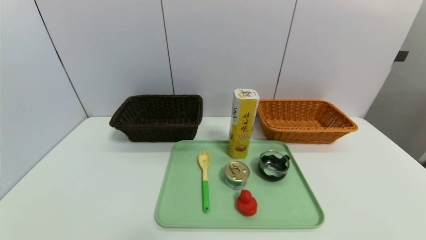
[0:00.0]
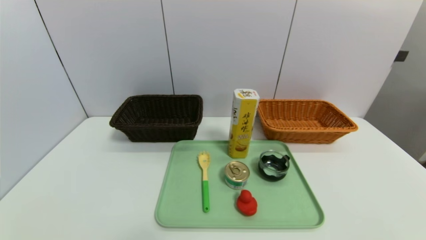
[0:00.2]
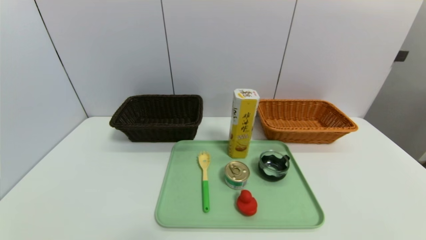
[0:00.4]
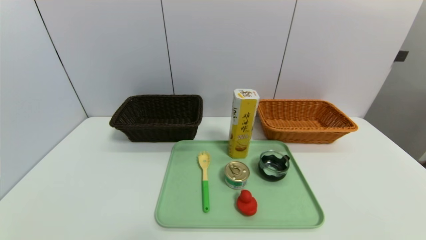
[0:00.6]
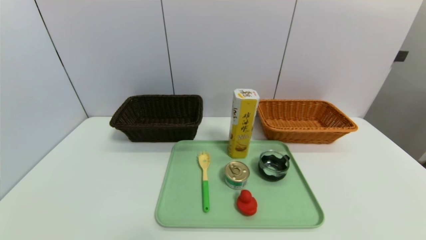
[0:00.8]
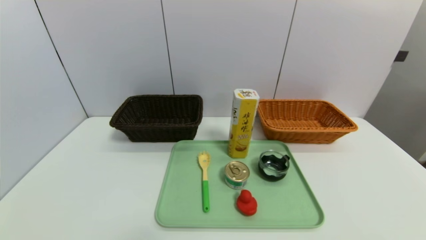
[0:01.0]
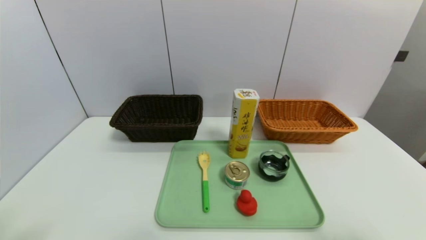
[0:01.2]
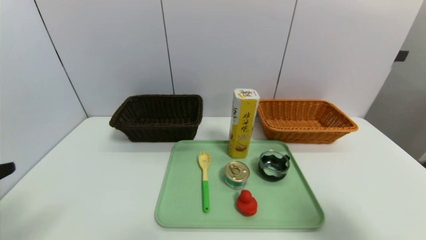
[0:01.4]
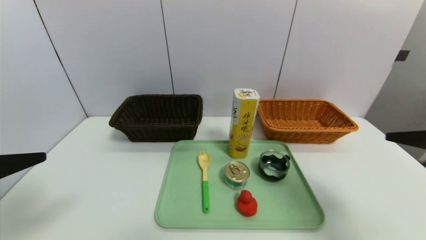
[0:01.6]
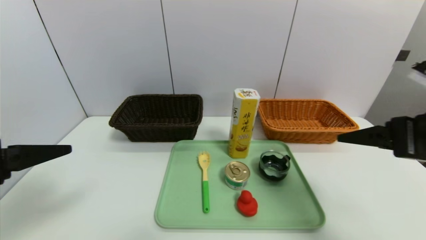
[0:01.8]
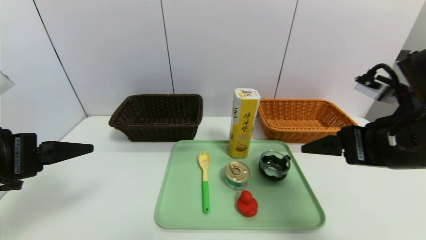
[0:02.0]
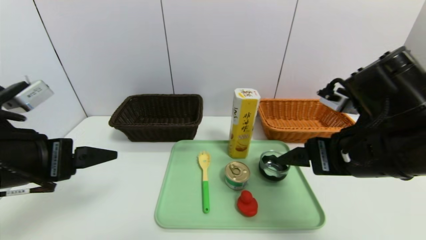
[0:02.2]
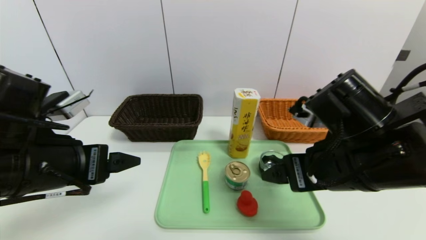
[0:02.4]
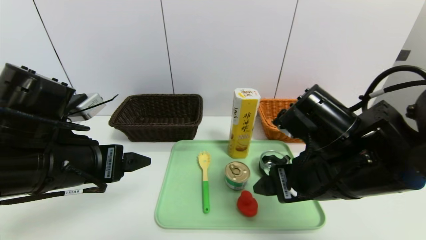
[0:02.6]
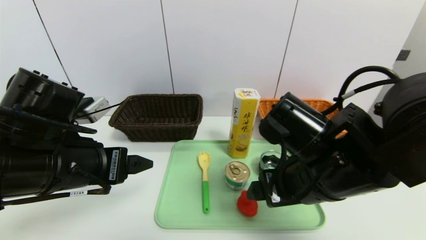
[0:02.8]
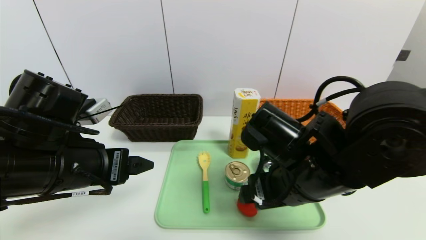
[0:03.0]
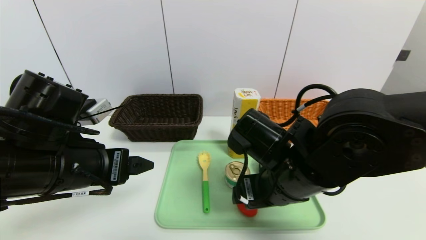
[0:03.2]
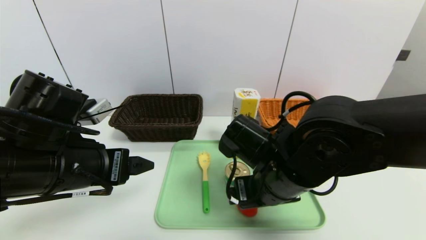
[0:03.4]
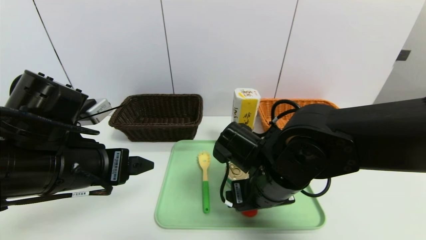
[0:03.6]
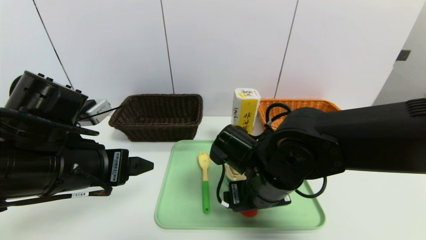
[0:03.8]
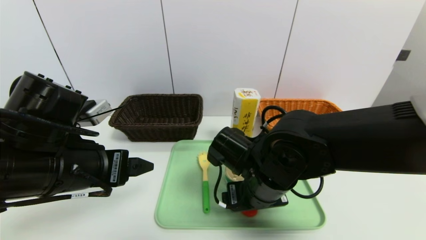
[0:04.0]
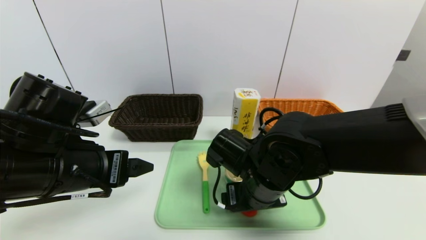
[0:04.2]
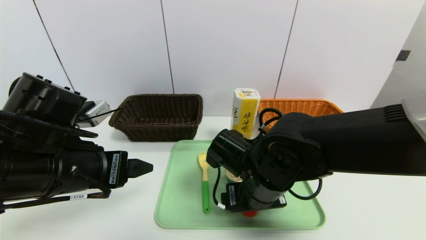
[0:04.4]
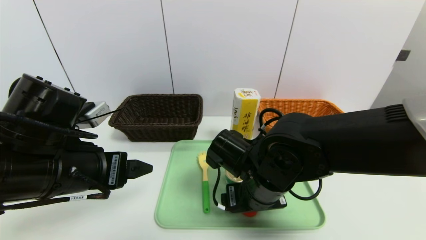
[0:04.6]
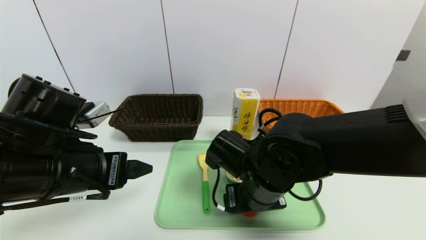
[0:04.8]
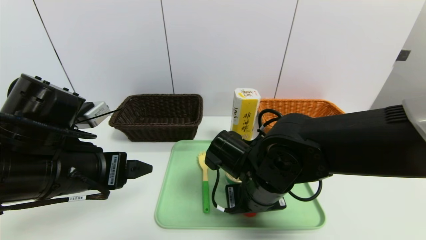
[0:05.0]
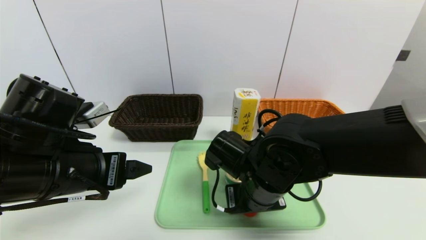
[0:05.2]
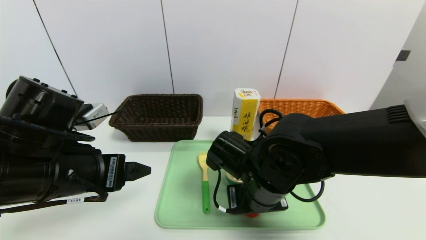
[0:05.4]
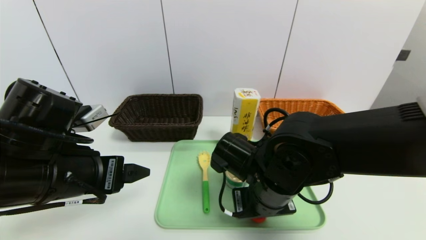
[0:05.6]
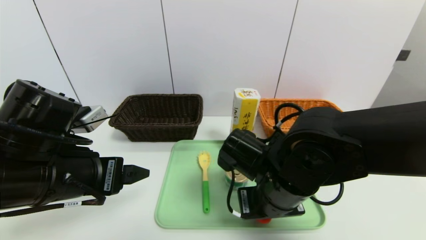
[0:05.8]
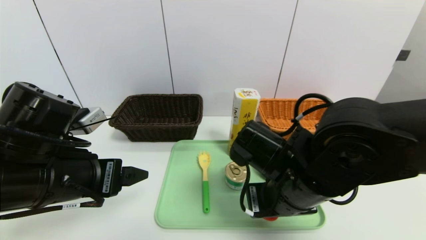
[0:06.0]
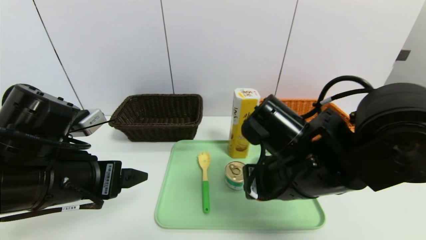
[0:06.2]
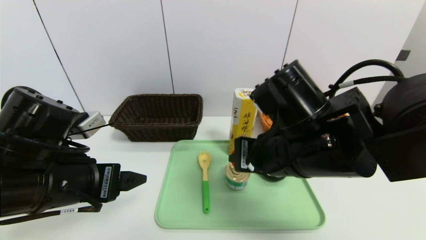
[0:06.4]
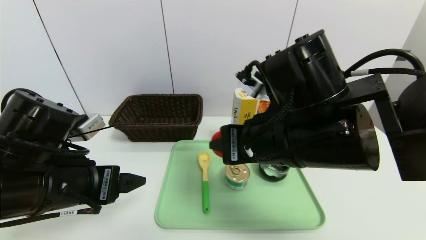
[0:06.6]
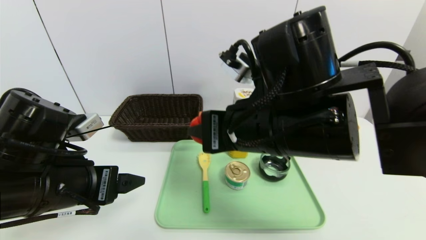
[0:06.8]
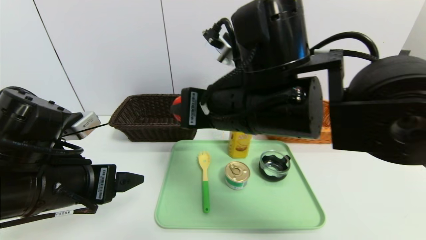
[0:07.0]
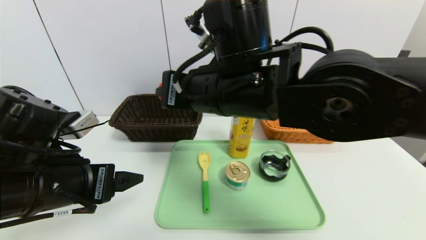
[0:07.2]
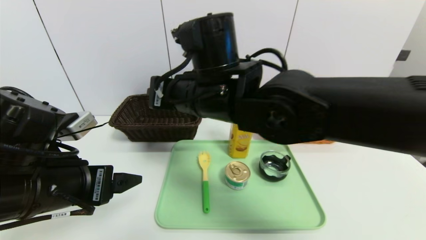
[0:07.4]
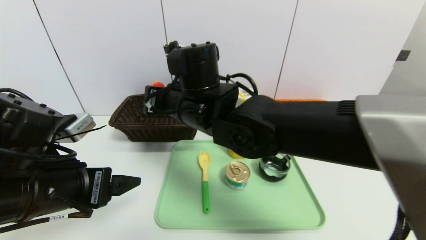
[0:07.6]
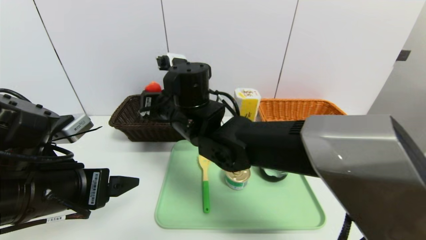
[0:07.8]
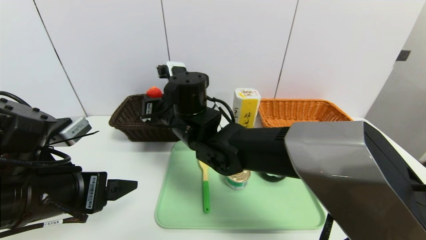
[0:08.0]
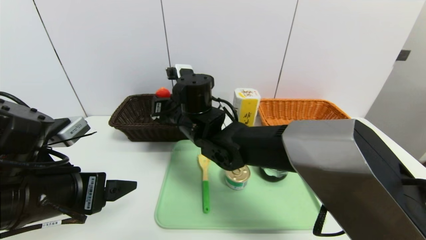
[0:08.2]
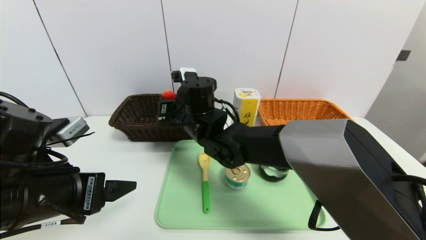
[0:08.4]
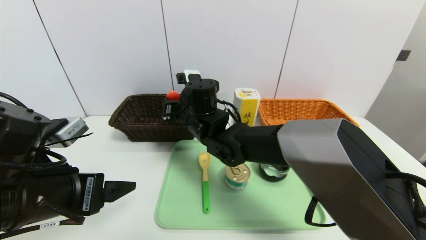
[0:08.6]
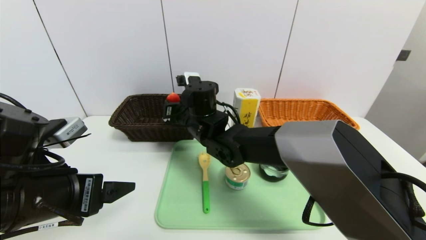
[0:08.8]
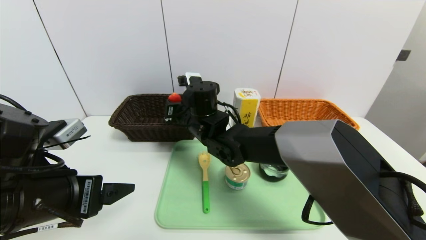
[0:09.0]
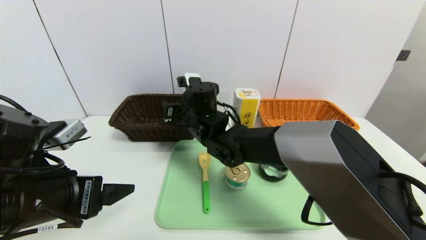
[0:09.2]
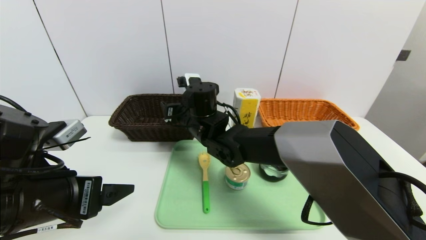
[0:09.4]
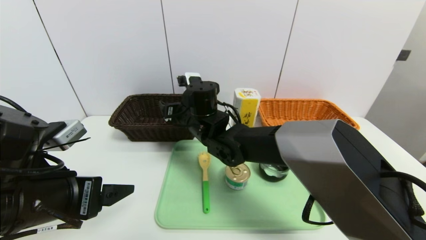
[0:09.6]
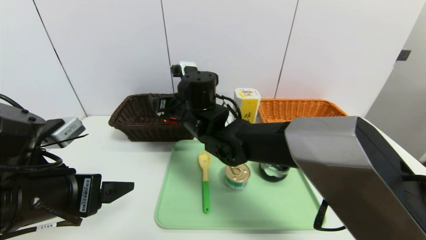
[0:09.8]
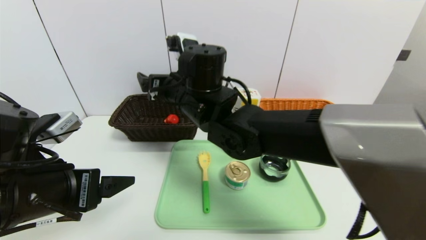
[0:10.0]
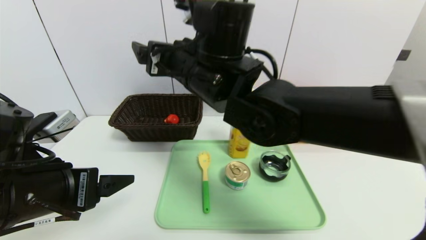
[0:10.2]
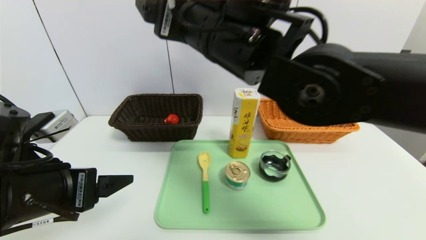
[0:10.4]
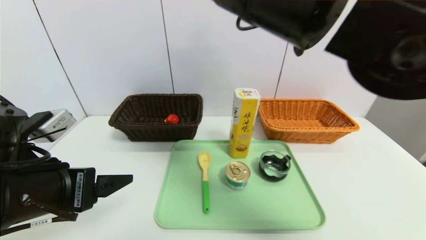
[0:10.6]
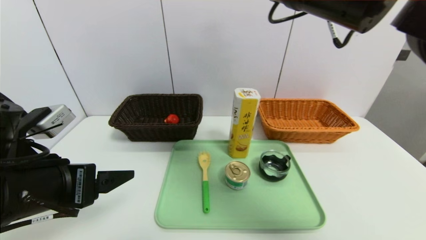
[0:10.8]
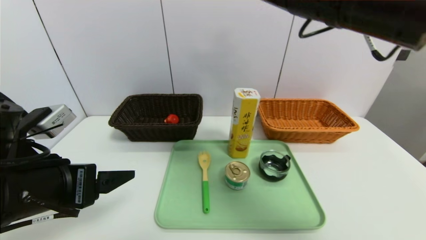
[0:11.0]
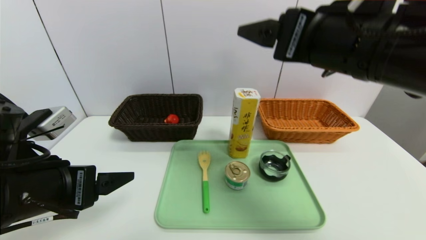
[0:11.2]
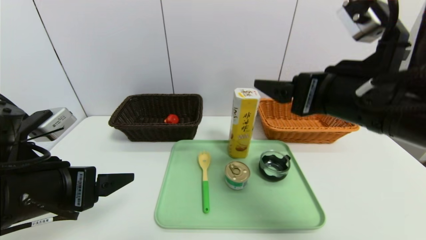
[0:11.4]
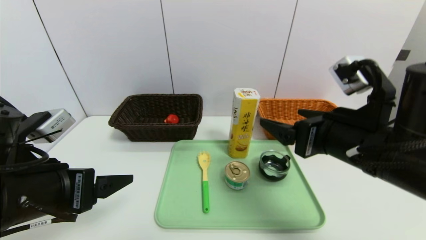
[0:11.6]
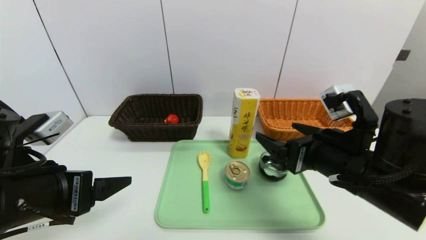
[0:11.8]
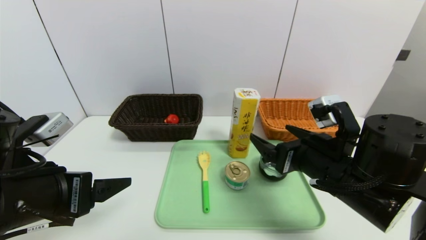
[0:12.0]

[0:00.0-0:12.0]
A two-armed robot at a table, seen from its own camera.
Task of the whole recording: place the food in the right basket with the right gripper, and place the non food items in the left basket with the left gripper.
Step, 0:00.0 to 0:09.6: Grasp the red duck and put it in the left basket.
0:00.0 to 0:01.6: Both grippers move upward and forward, some 25 cm.
0:01.6 to 0:03.0: The left gripper travels to the right and forward by roughly 15 cm. The right gripper goes approximately 20 cm to the left and downward.
0:03.0 to 0:04.4: The right gripper shifts some 5 cm downward.
0:04.4 to 0:06.0: The right gripper moves approximately 5 cm, and closes up.
0:06.0 to 0:07.6: The right gripper is displaced to the left, forward and upward by approximately 20 cm.
0:07.6 to 0:09.0: The right gripper goes approximately 10 cm downward and forward.
0:09.0 to 0:10.4: The right gripper travels upward and backward by about 20 cm, and opens.
0:10.4 to 0:12.0: The right gripper goes approximately 25 cm downward and to the right.

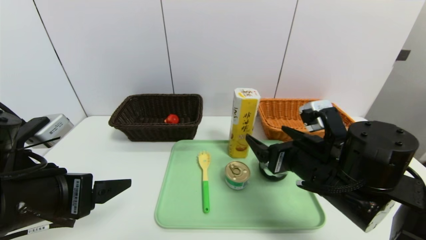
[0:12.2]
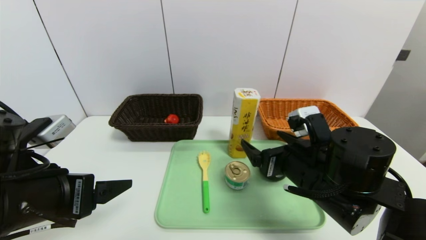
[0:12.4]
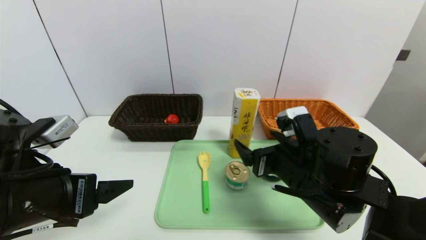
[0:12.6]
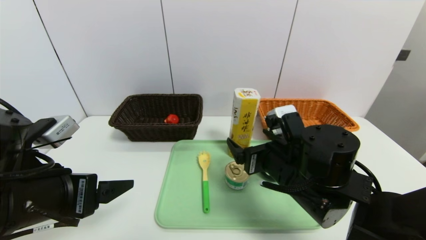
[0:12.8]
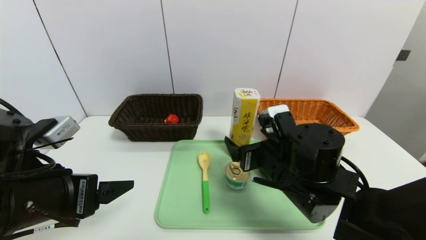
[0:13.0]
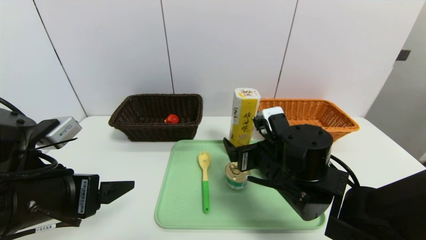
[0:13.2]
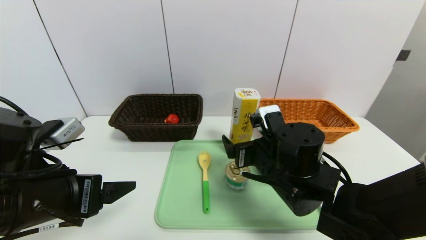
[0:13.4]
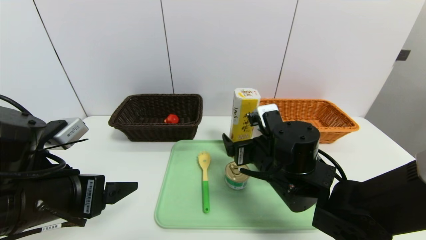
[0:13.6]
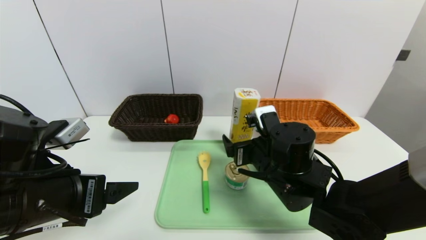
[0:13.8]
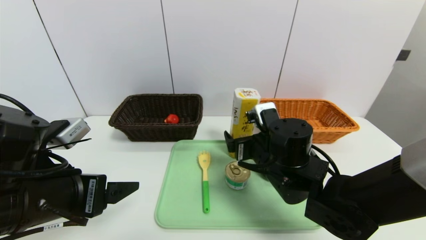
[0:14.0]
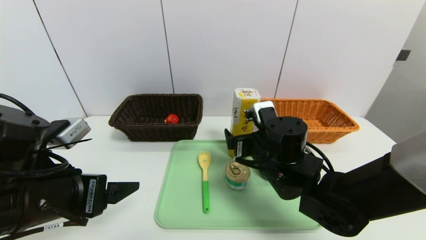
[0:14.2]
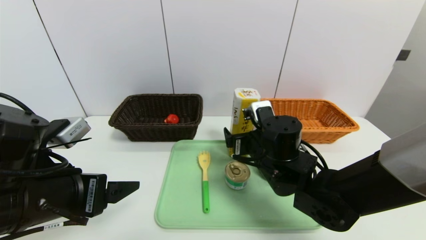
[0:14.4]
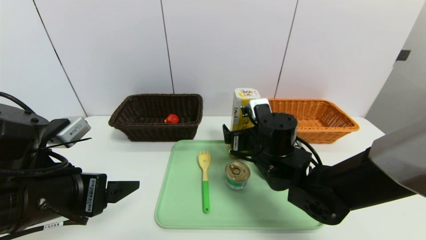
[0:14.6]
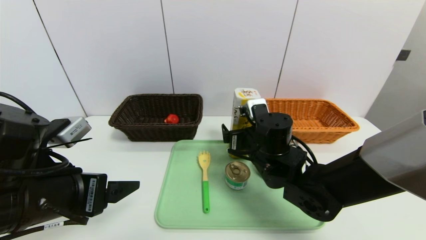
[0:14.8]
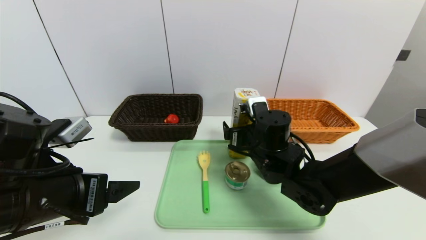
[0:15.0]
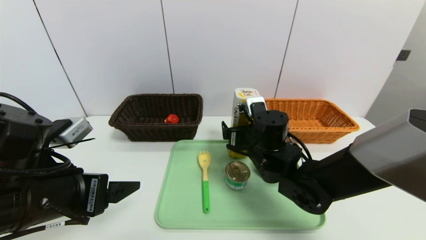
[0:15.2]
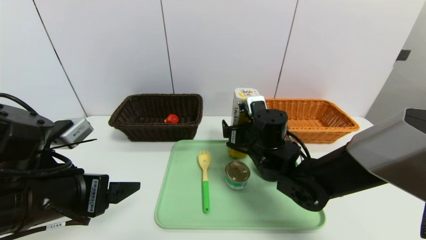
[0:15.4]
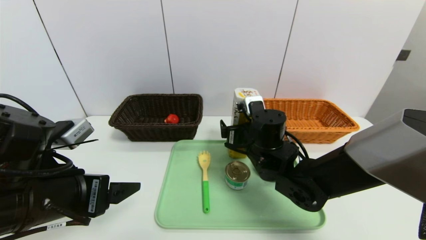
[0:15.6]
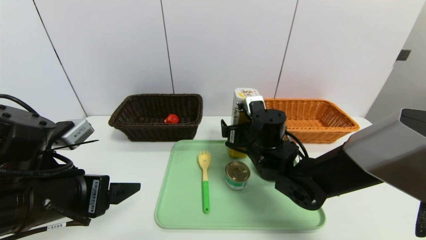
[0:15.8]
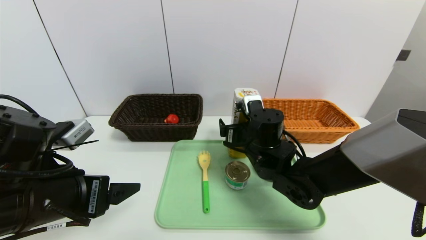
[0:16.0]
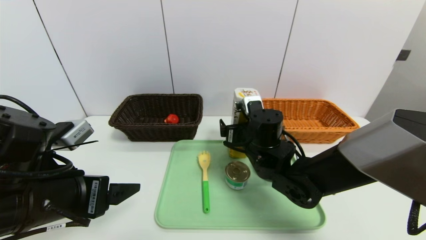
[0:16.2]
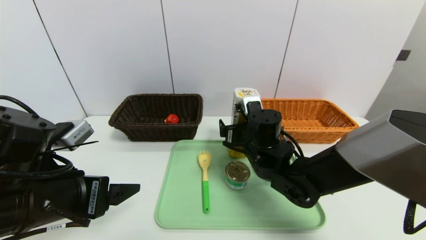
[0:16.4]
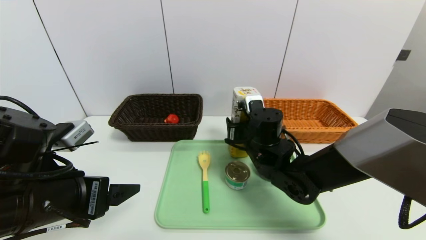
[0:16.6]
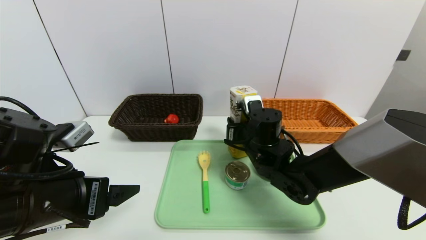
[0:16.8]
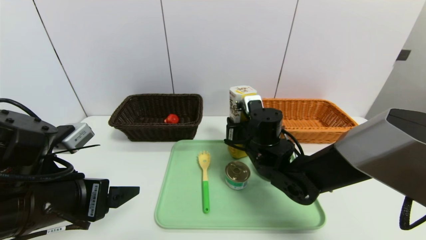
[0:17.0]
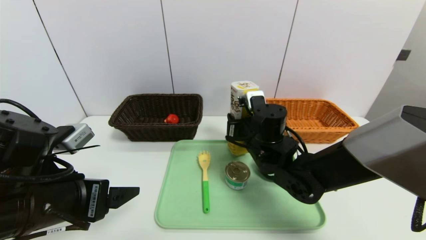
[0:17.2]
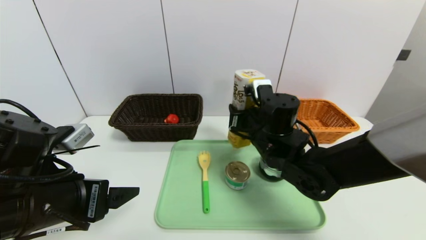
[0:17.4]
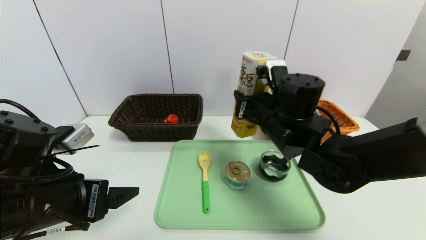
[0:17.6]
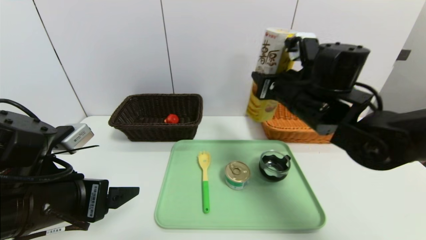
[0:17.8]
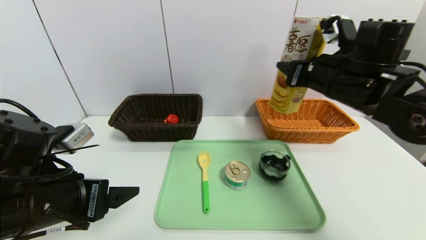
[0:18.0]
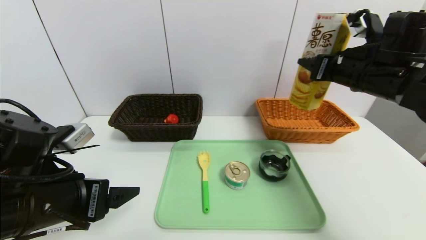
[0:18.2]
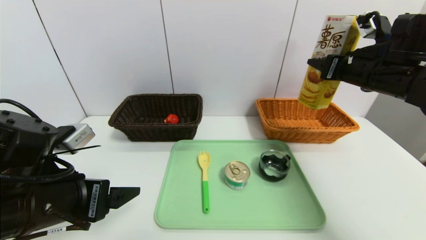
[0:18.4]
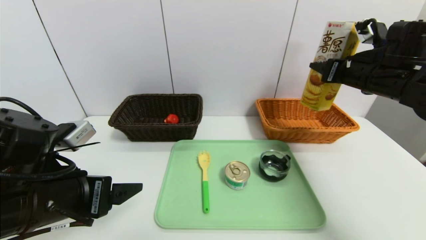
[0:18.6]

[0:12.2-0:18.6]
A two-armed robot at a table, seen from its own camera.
Task of the whole recording: place the food in the right basket with the right gripper, and place the non food items in the left basket with the left gripper.
0:12.2 to 0:13.8: The right gripper travels to the left by approximately 5 cm.
0:13.8 to 0:15.4: The right gripper shifts about 5 cm forward.
0:15.4 to 0:17.0: The right gripper closes its fingers.
0:17.0 to 0:18.6: The right gripper travels to the right and upward by about 25 cm.
